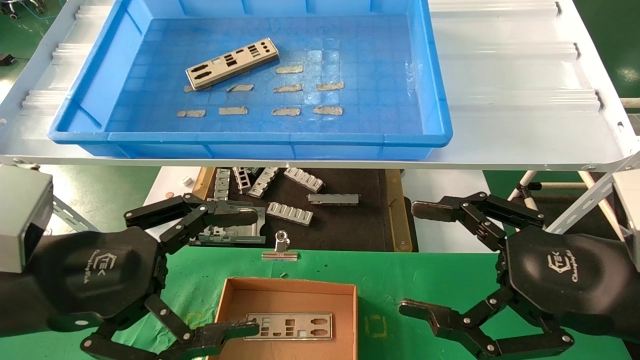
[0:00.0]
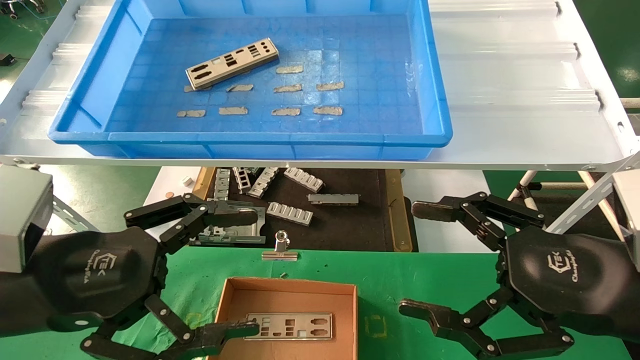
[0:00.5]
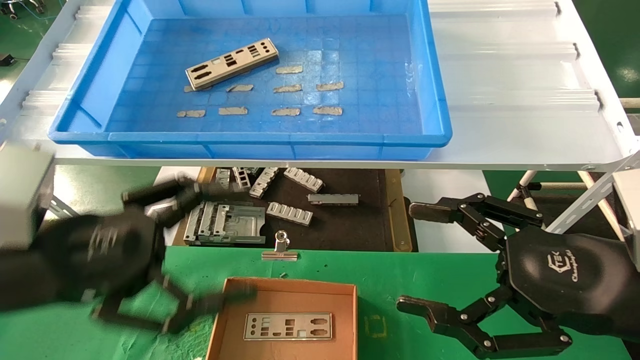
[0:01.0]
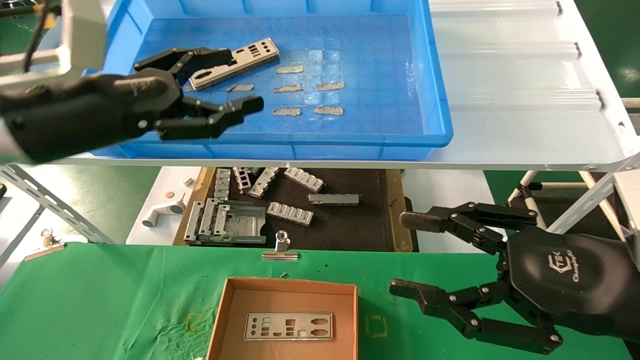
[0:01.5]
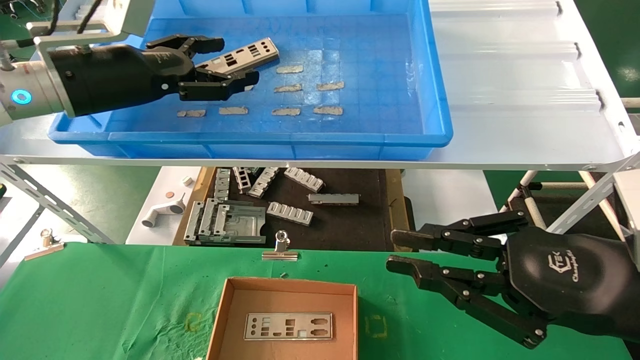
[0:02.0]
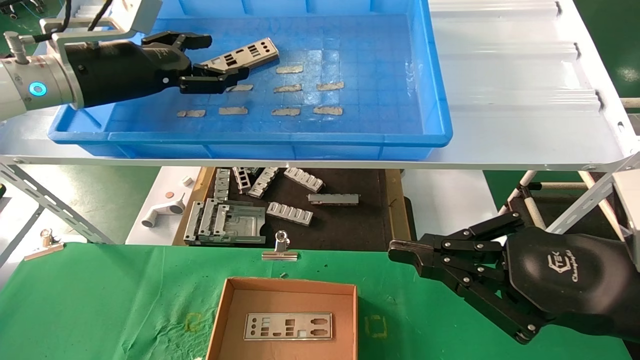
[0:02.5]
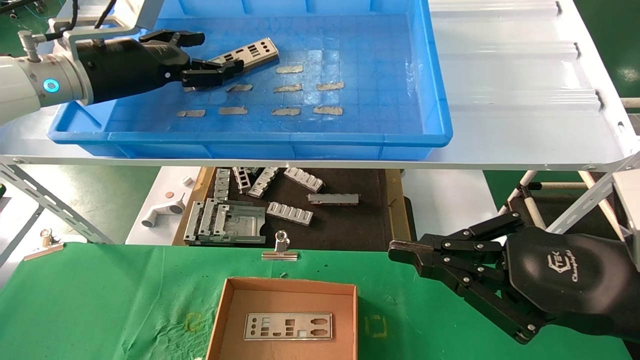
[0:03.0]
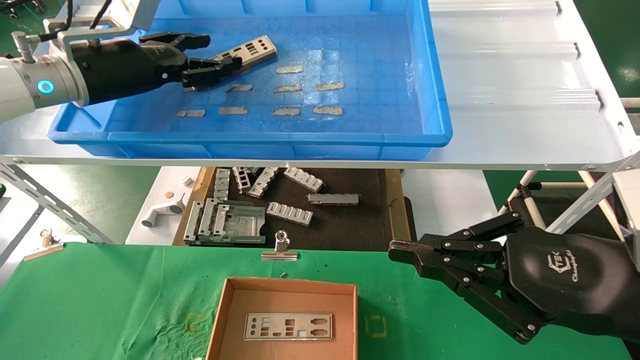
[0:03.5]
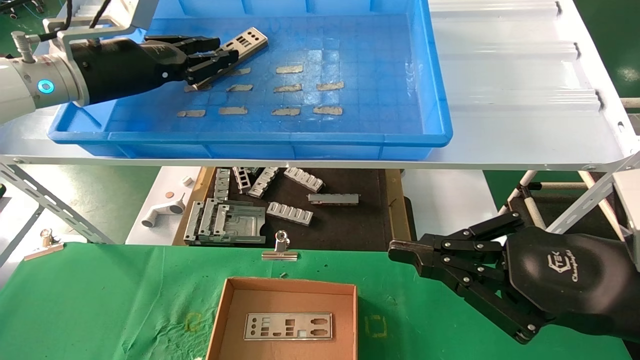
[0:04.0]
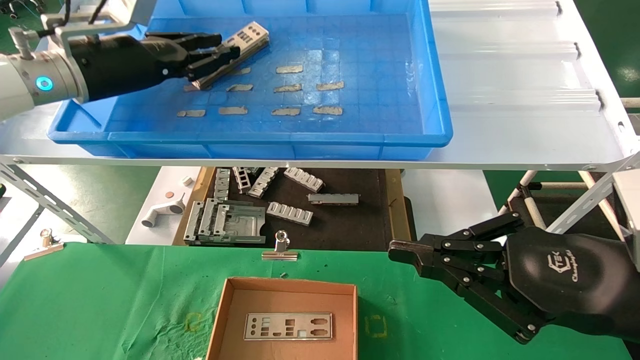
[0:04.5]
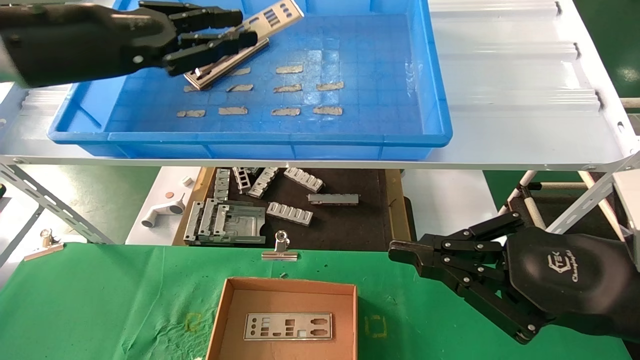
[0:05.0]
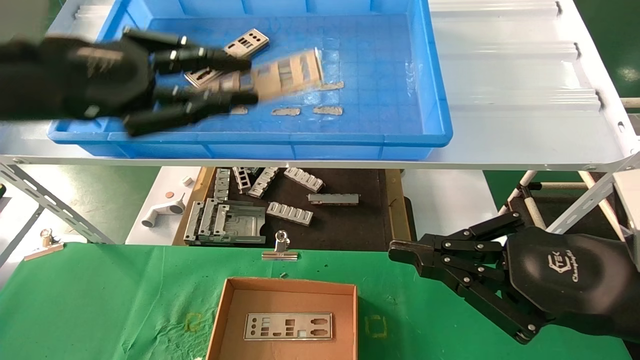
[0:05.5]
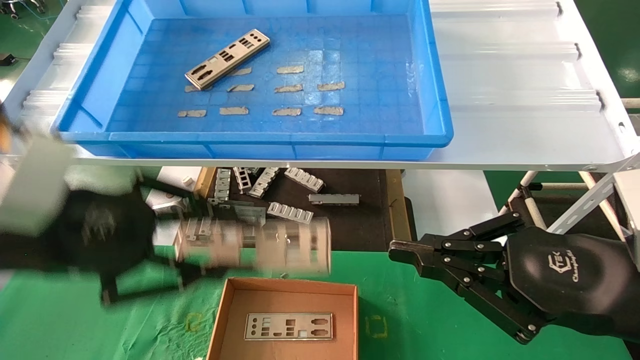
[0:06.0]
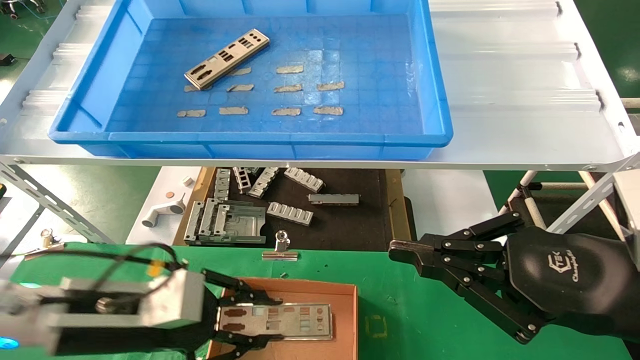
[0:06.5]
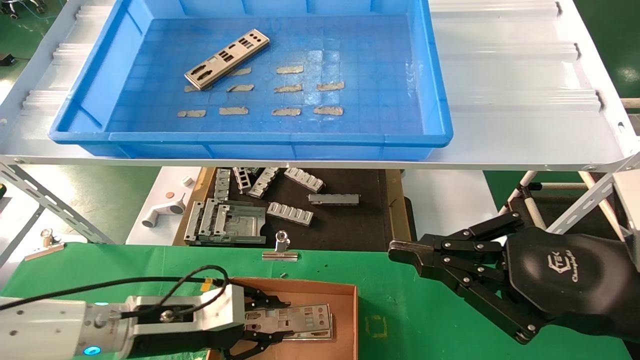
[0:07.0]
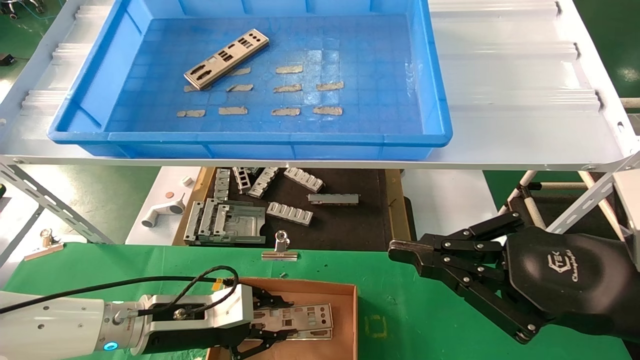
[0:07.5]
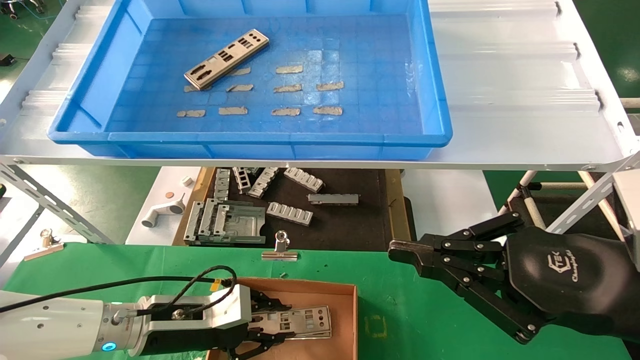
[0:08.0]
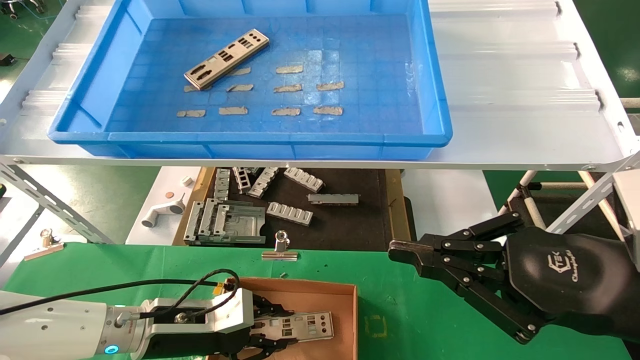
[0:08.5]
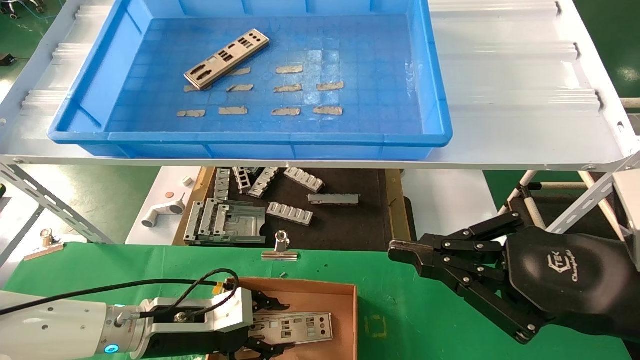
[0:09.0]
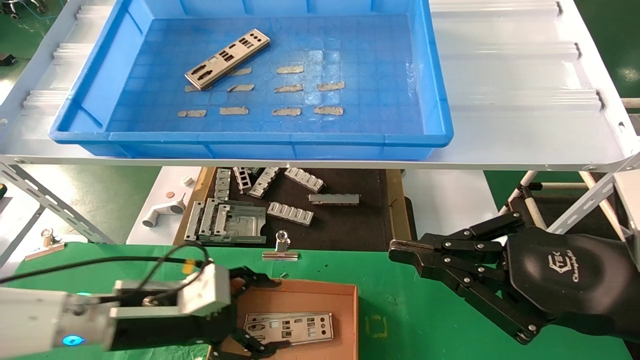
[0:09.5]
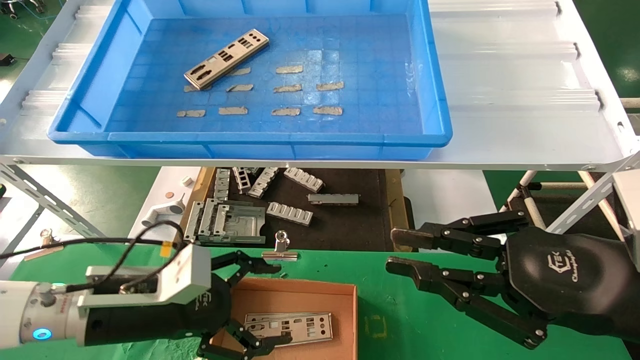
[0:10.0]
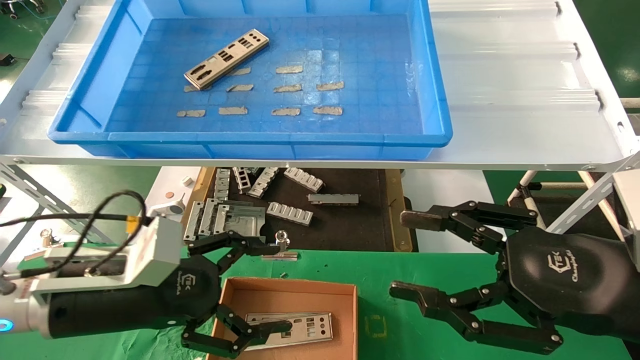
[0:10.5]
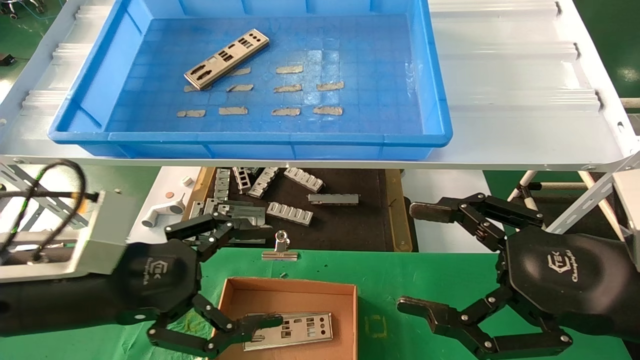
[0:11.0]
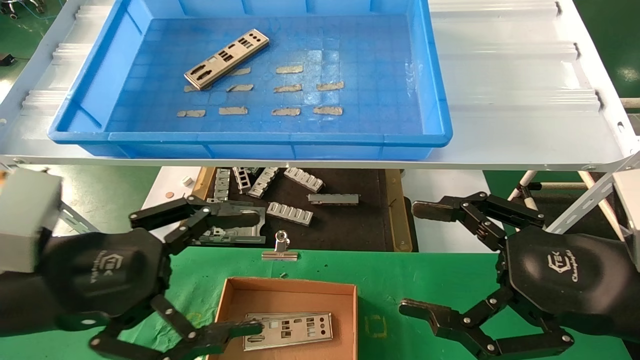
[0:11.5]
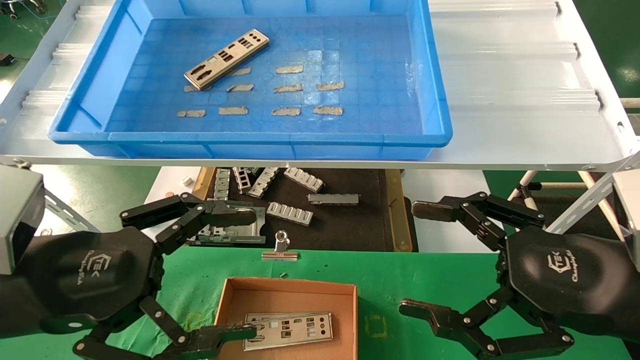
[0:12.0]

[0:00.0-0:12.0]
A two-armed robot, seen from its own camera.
Task of the whole recording: pick up the parts on the tray and put them in the cardboard box.
Step, 0:01.5 to 0:04.5: Pick up the IO bracket from the container box.
Step, 0:05.0 to 0:09.0: Place the IO bracket into the ingredient slot.
0:00.0 to 0:02.0: The left gripper shifts approximately 25 cm forward and upward. Meanwhile the right gripper closes up.
0:02.0 to 0:04.0: The left gripper closes its fingers.
0:04.0 to 0:06.0: The left gripper moves backward and downward, some 20 cm.
0:06.0 to 0:08.0: The left gripper goes some 25 cm downward and forward.
0:08.0 to 0:10.0: The left gripper is displaced upward by approximately 5 cm, and opens its fingers.
0:10.0 to 0:12.0: The left gripper travels upward and backward by approximately 15 cm, while the right gripper opens up.

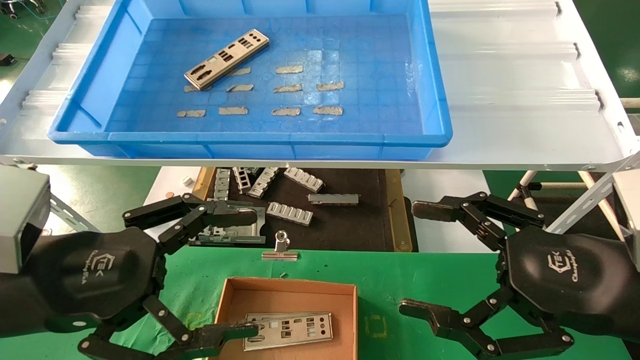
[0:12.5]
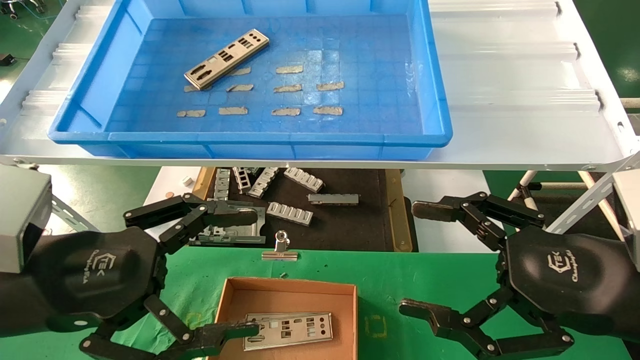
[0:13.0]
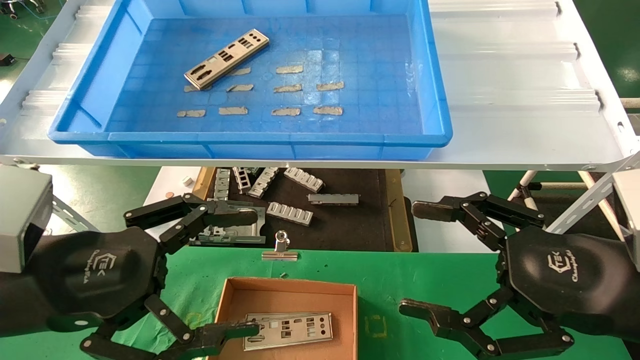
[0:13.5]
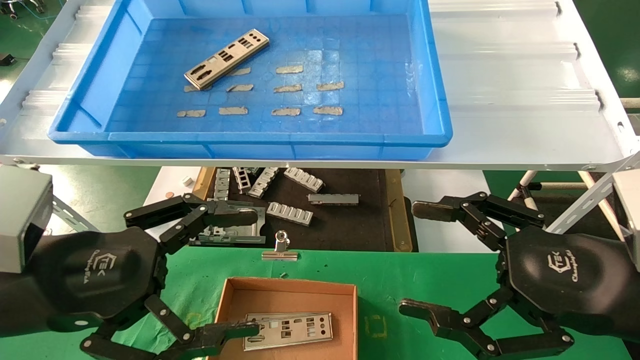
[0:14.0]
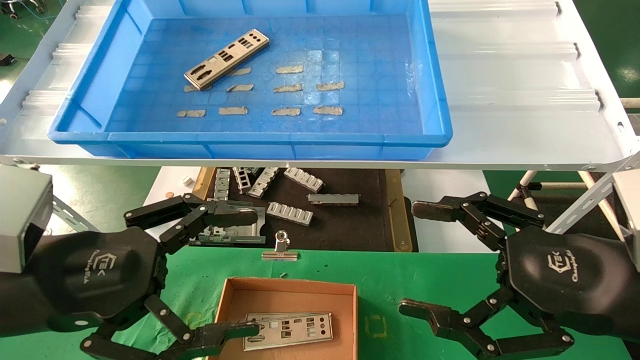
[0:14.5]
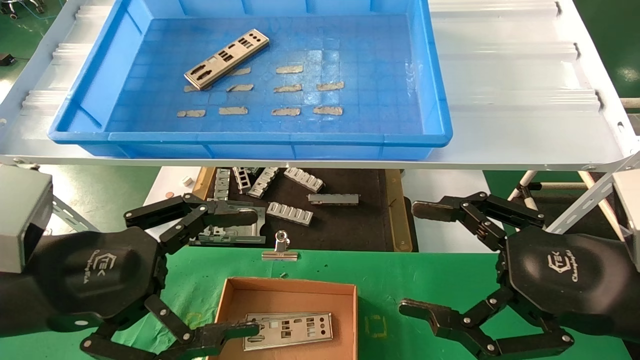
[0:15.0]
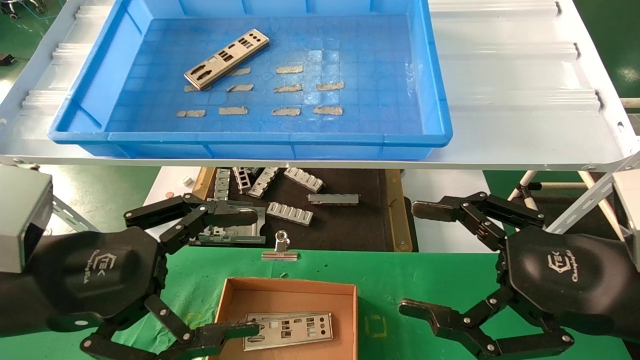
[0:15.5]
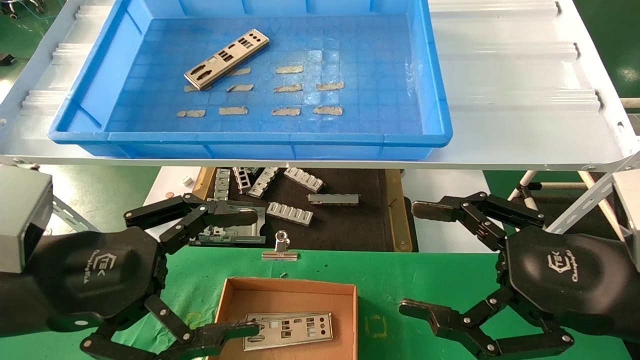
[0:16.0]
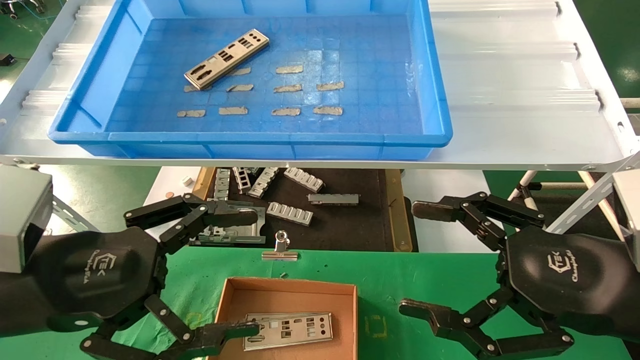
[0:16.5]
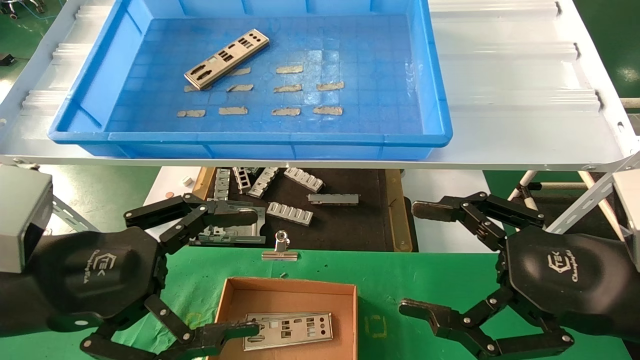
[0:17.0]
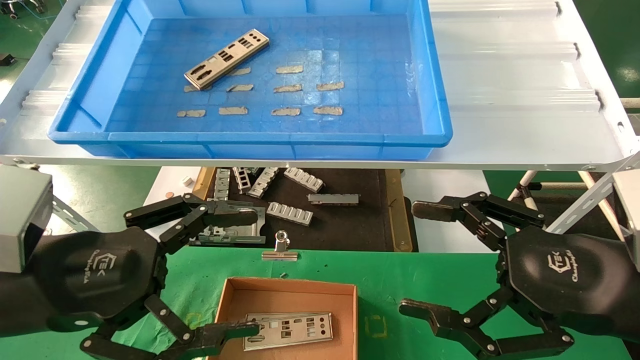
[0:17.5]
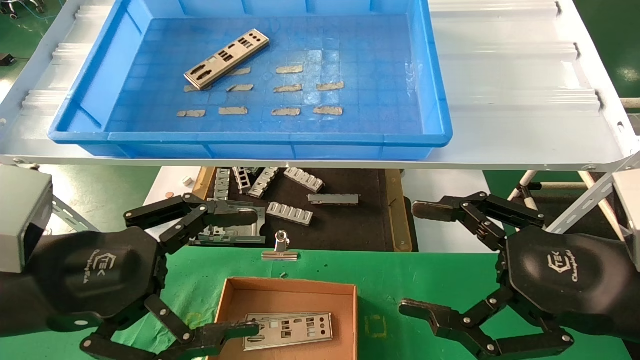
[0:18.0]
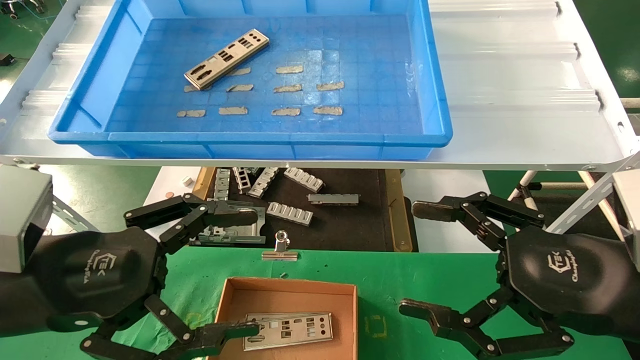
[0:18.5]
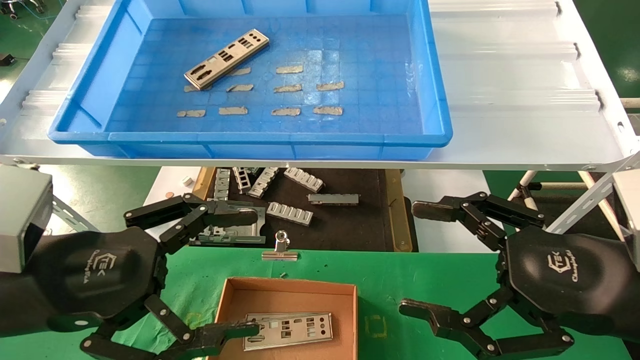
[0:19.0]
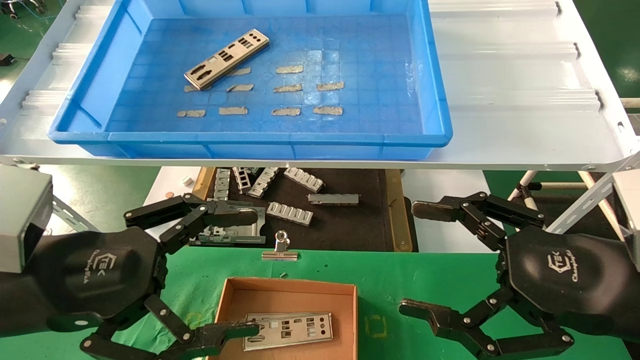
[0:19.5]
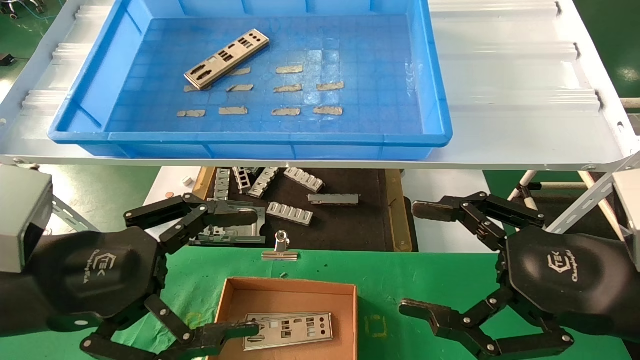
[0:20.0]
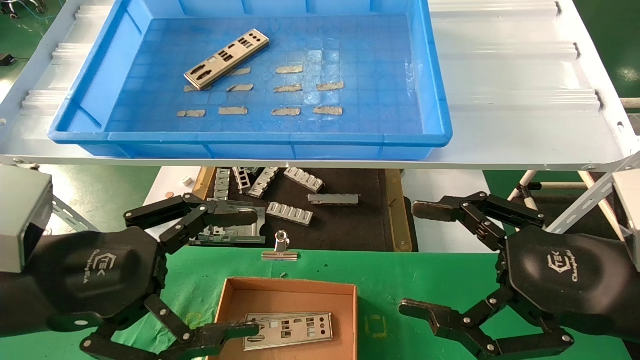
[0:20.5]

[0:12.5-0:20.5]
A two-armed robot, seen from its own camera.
Task of the whole recording: pick up the parts on the tray and put them in the cardboard box.
0:12.5 to 0:20.5: Both grippers stay about where they are.
